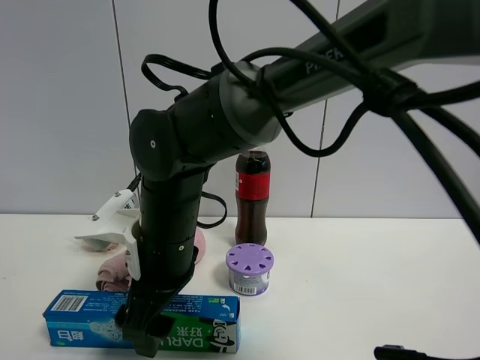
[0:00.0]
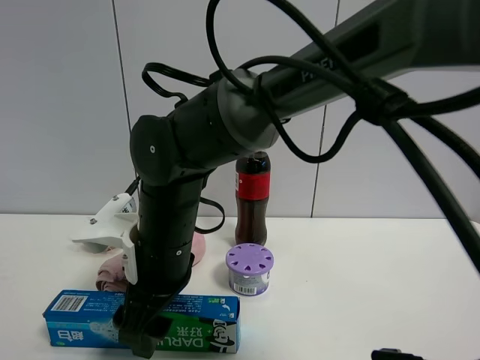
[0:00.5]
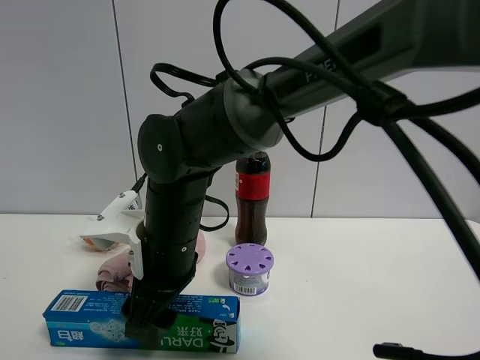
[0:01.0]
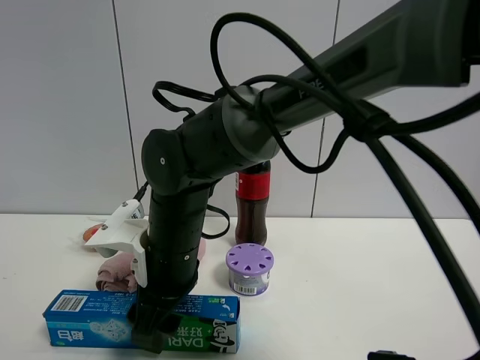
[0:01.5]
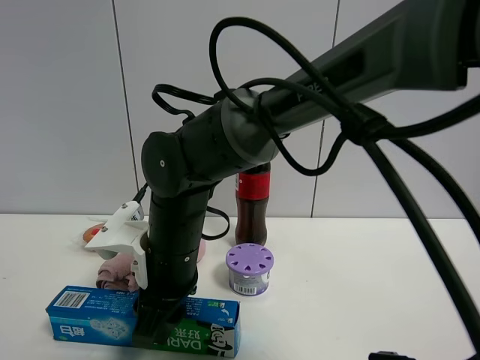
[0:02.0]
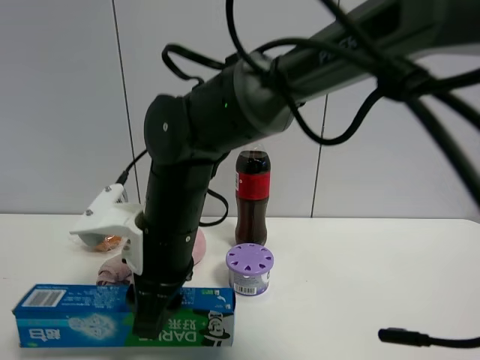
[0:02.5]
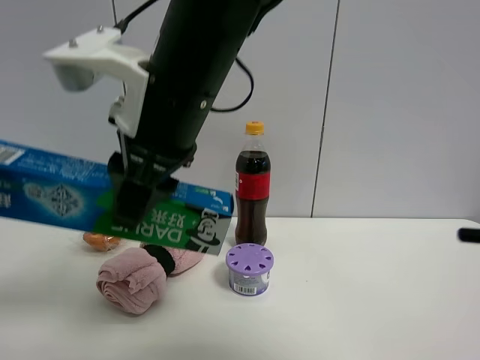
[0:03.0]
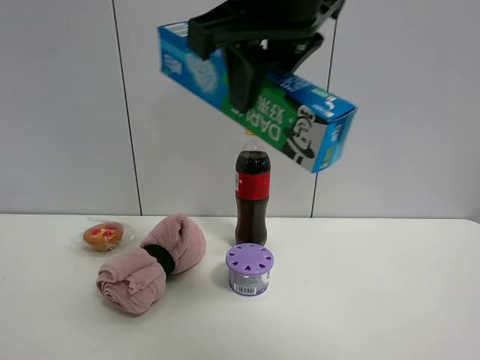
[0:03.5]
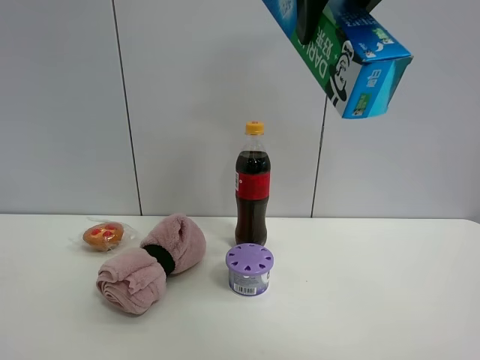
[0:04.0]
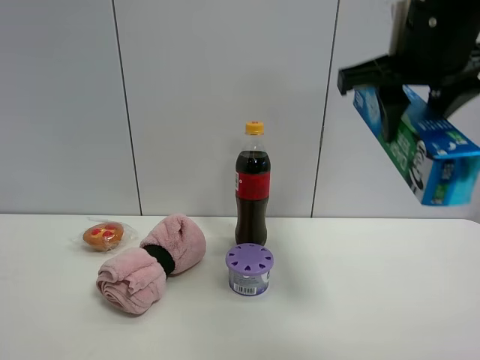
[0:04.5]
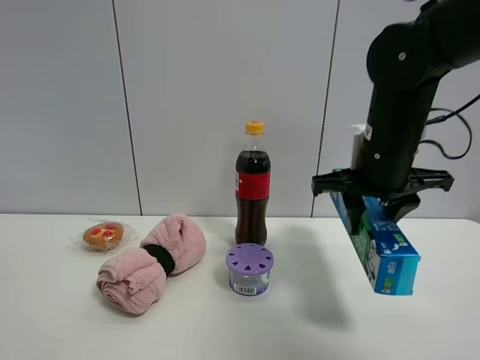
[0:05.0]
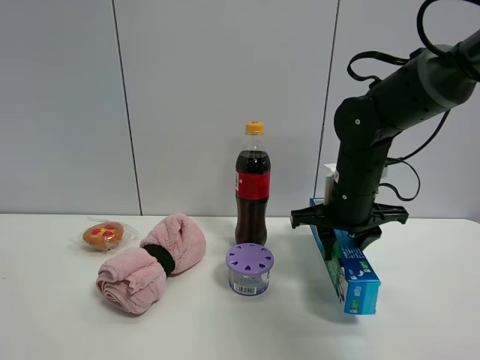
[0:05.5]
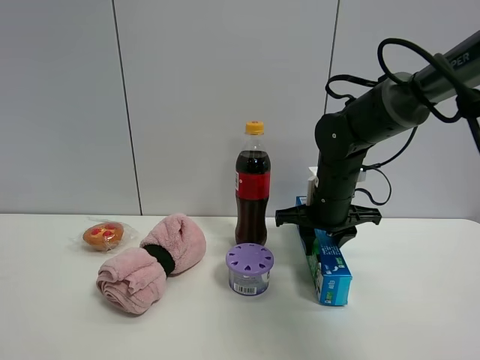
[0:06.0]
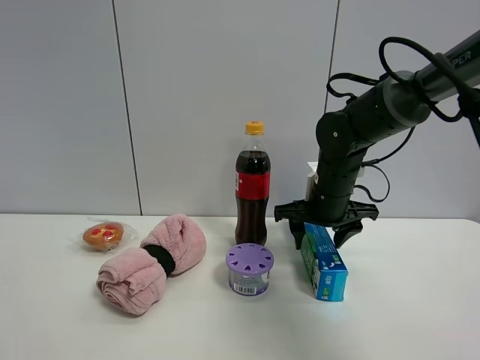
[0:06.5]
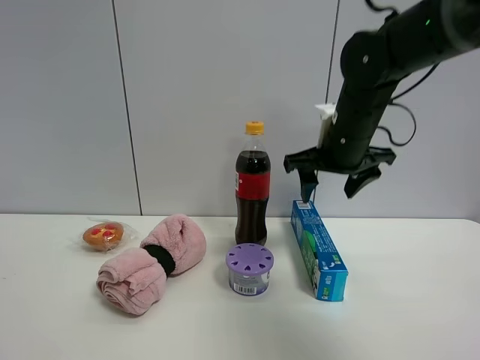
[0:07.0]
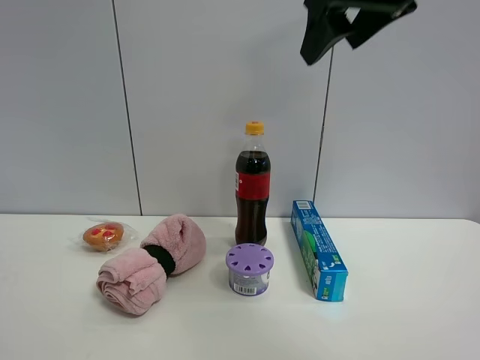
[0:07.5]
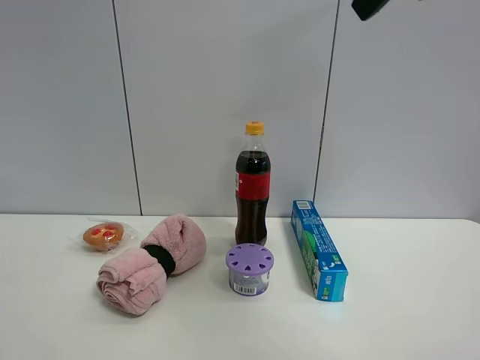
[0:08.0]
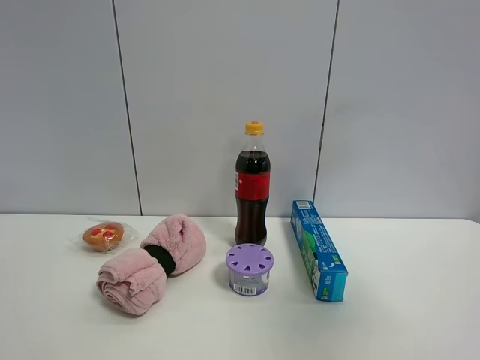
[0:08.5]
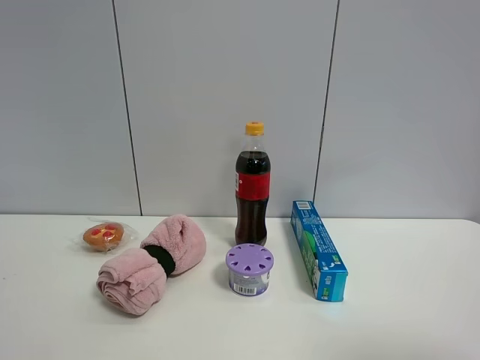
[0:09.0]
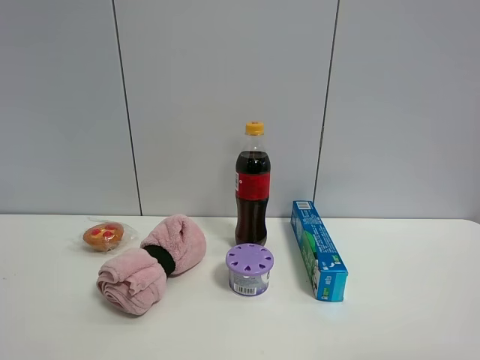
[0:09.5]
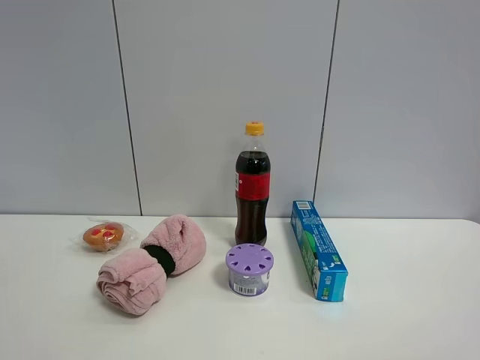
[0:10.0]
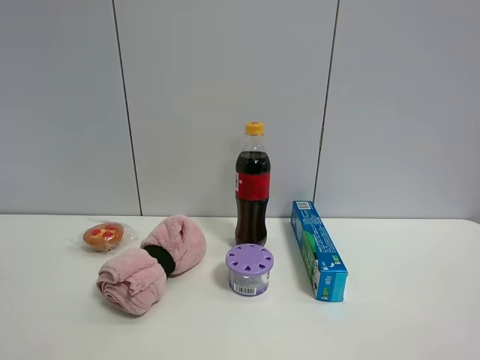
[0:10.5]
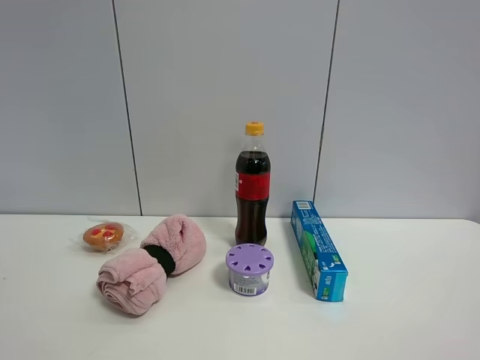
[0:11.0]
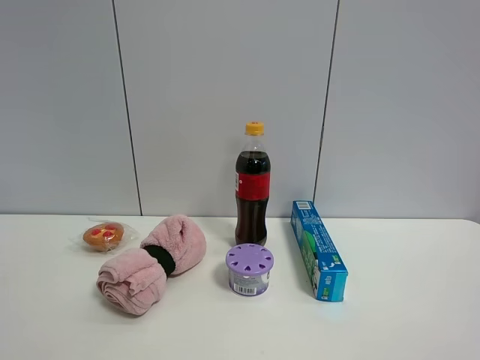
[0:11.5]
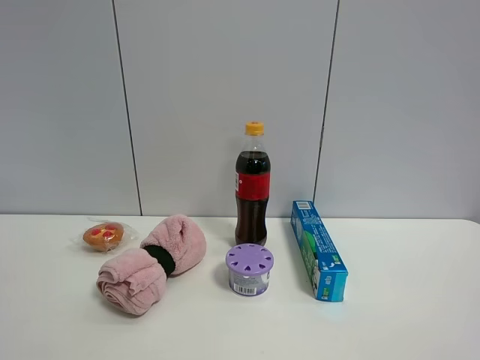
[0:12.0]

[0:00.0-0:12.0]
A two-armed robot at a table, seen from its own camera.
Task of the whole recording: the gripper move the object.
Step, 0:00.0 to 0:02.0: Grasp the toothpaste with the right gripper.
Step, 0:02.5 to 0:06.5: Place the toothpaste on the table with the right gripper.
0:00.0 to 0:02.0: The right gripper closes.
0:02.0 to 0:04.0: The right gripper heads upward and to the right, covering some 35 cm.
0:04.0 to 0:06.0: The right gripper moves downward and forward, some 35 cm.
0:06.0 to 0:08.0: The right gripper moves upward and backward, roughly 35 cm, and opens its fingers.
0:08.0 to 0:10.0: The right gripper goes roughly 30 cm backward, downward and to the right.

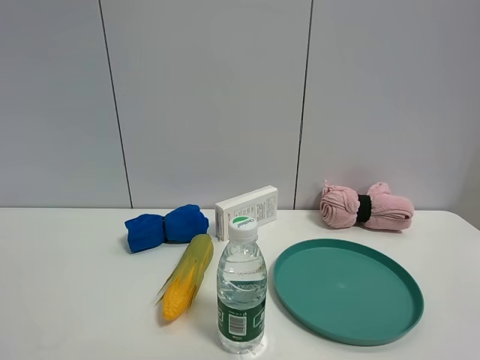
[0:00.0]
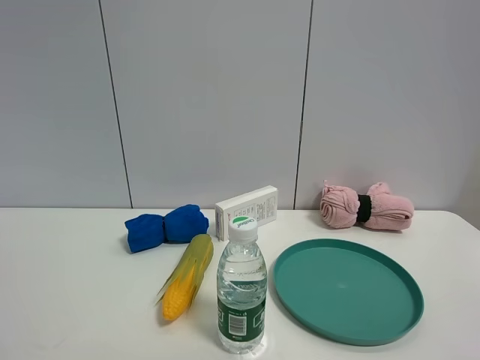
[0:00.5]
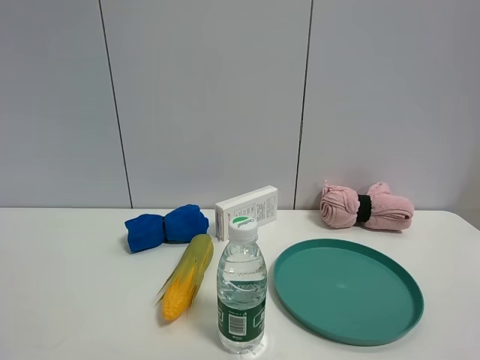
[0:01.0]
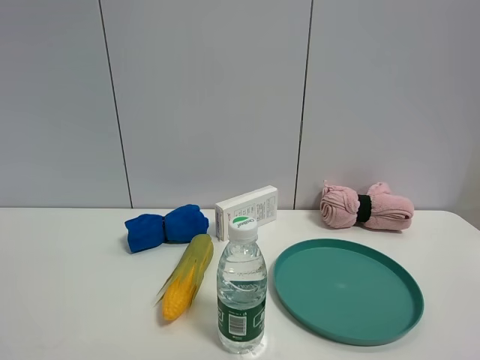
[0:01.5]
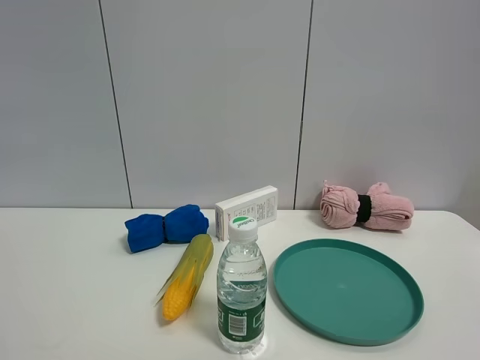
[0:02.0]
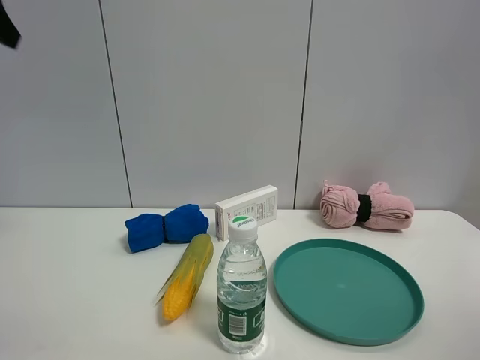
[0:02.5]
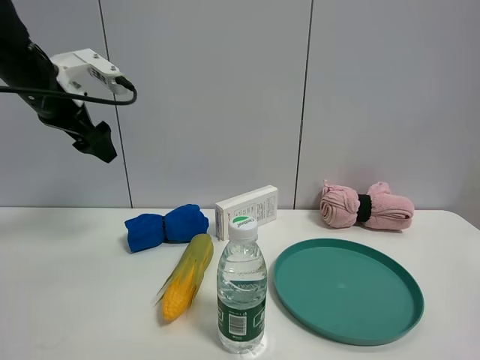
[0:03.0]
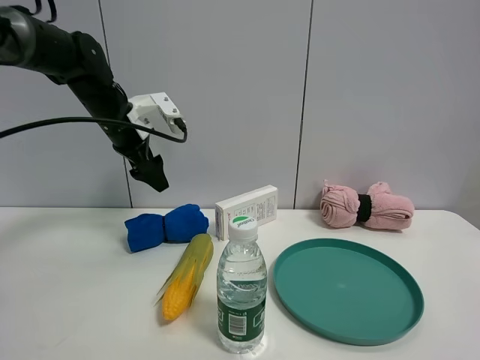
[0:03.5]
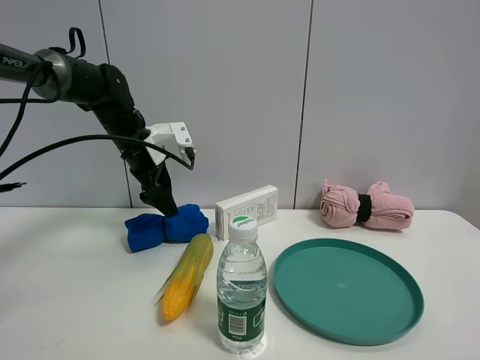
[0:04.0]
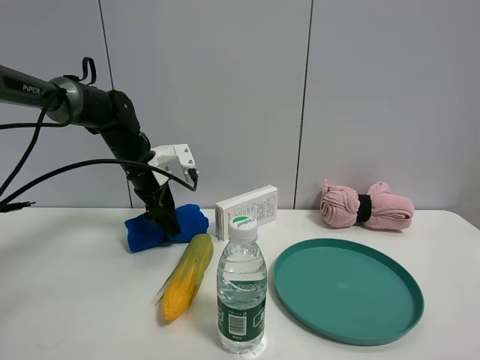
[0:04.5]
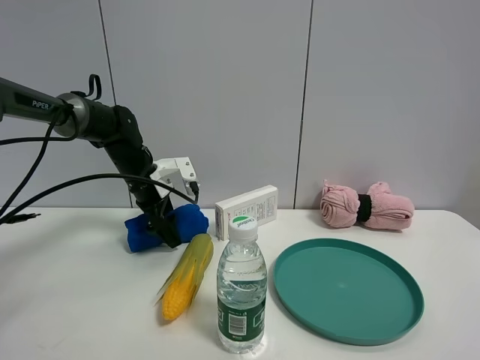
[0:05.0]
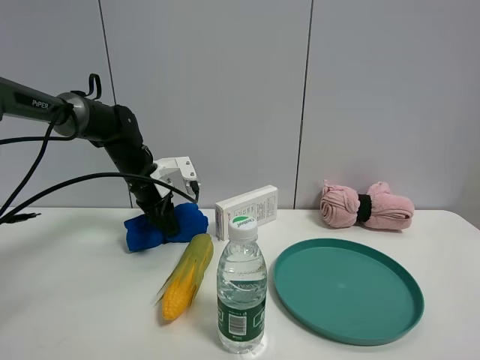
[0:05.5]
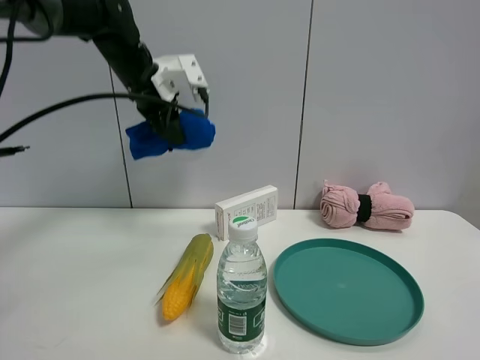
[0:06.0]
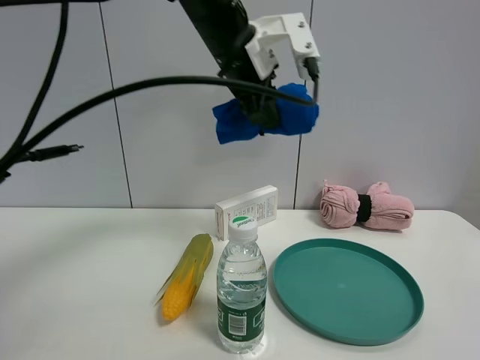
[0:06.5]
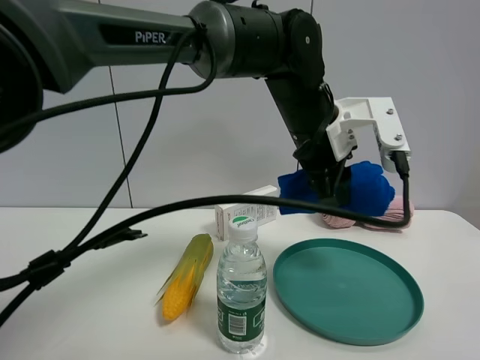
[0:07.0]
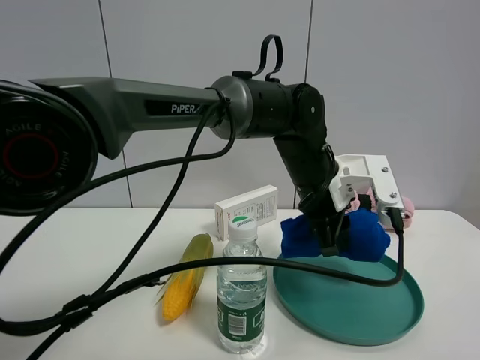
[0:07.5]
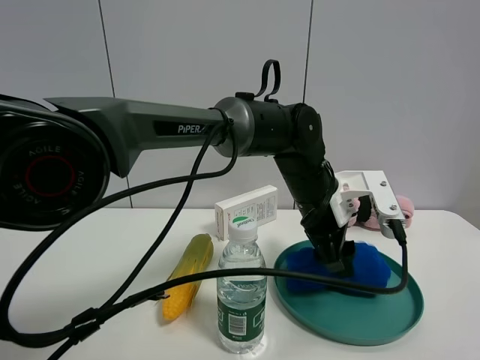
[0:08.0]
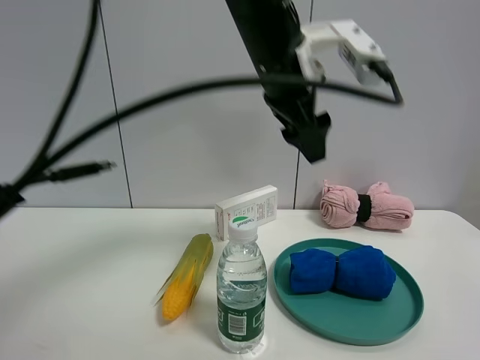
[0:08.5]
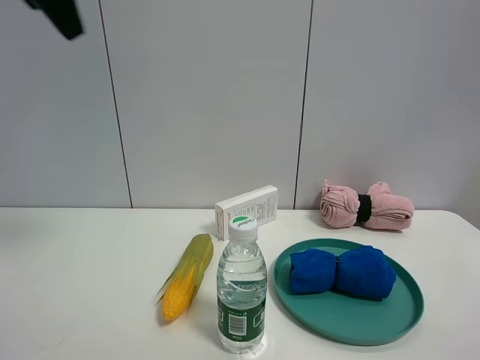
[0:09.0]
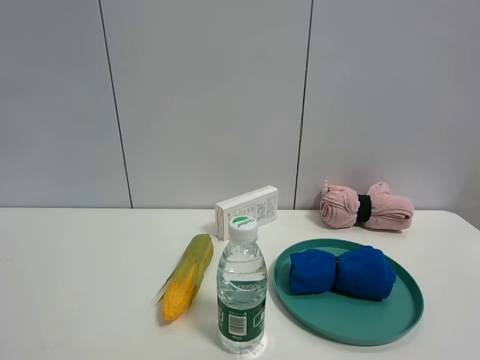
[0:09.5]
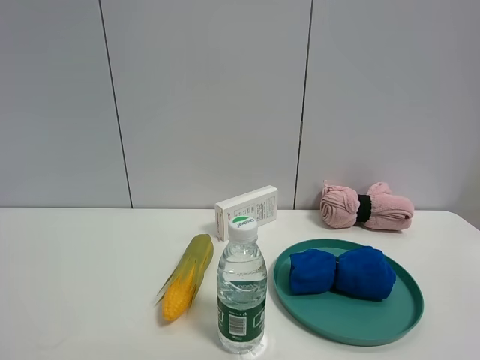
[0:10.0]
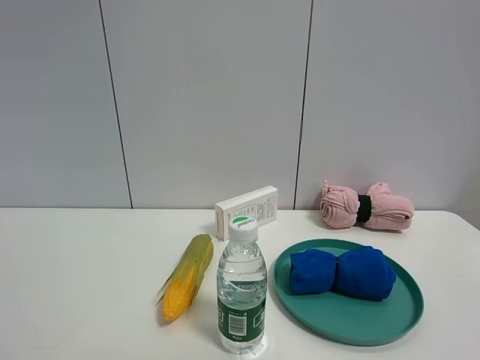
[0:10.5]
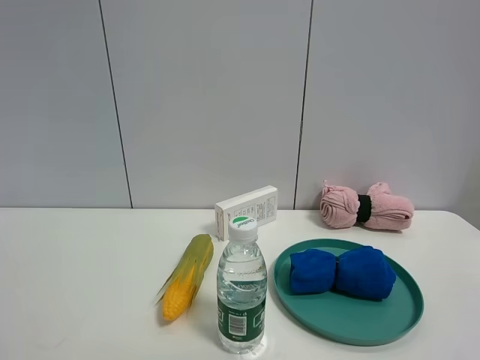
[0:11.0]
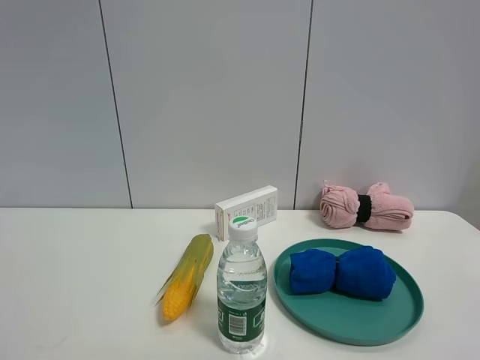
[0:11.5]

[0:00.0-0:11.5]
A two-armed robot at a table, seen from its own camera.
Task of the whole recording: the gripper move the object.
Step, 0:00.0 to 0:05.5: Grasp the blue towel with the left gripper.
Step, 0:06.0 to 0:08.0: Place the blue towel into the green plate with the left gripper.
0:02.0 to 0:04.0: The left gripper moves forward and downward, roughly 50 cm.
0:04.0 to 0:06.0: The left gripper shifts about 10 cm upward, and closes.
0:06.0 to 0:07.5: The left gripper moves to the right, backward and downward, some 30 cm.
0:07.5 to 0:09.5: The left gripper goes about 60 cm to the left, upward and backward, and opens its fingers.
